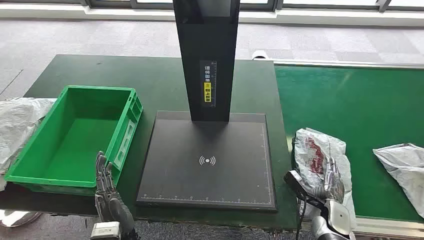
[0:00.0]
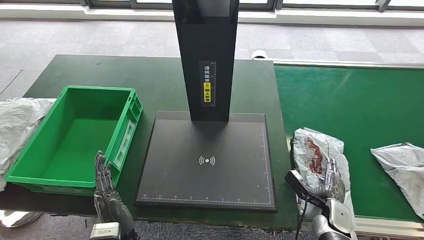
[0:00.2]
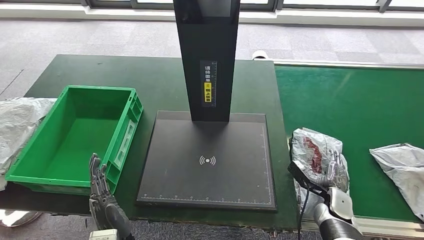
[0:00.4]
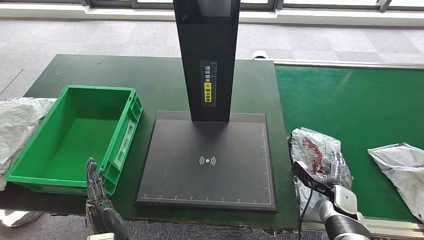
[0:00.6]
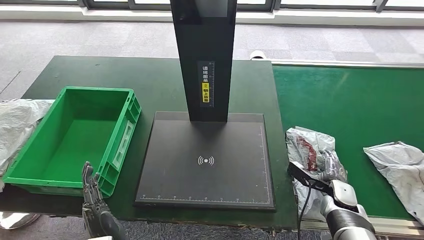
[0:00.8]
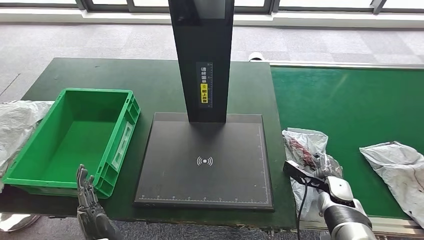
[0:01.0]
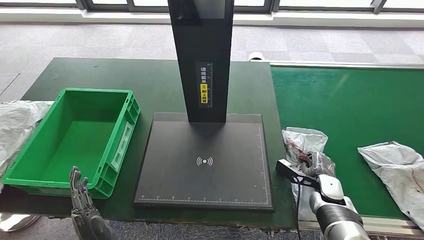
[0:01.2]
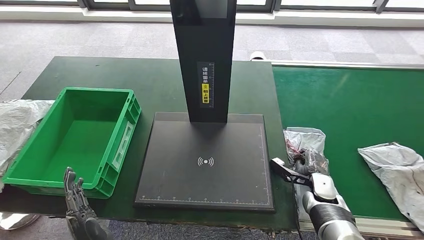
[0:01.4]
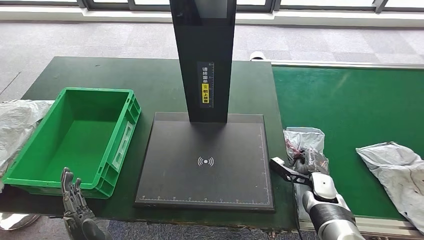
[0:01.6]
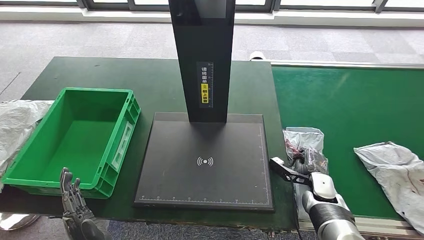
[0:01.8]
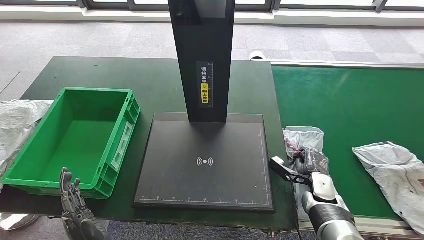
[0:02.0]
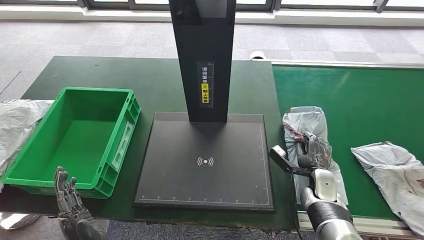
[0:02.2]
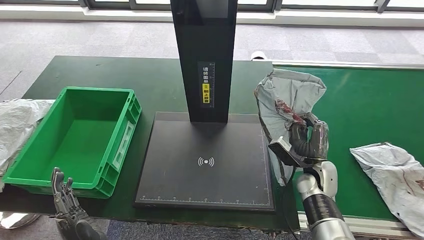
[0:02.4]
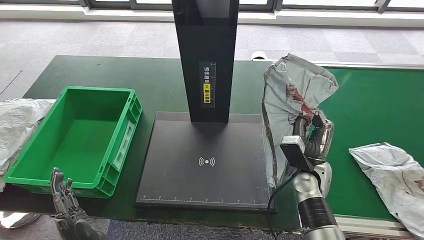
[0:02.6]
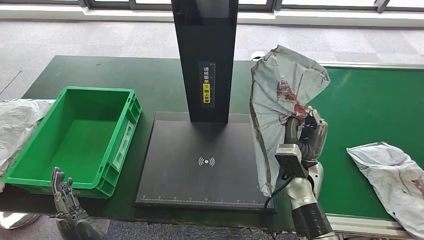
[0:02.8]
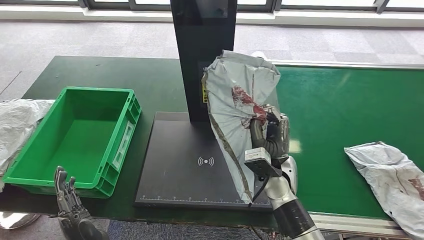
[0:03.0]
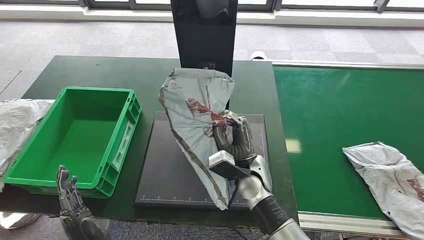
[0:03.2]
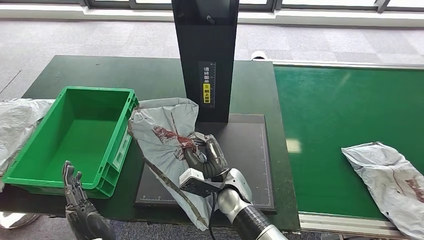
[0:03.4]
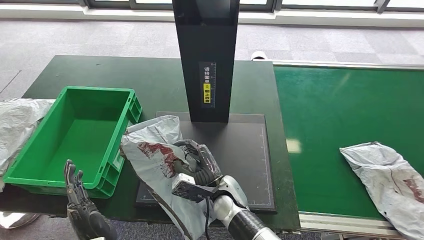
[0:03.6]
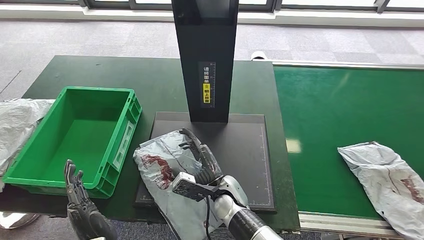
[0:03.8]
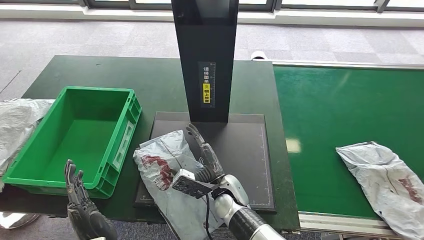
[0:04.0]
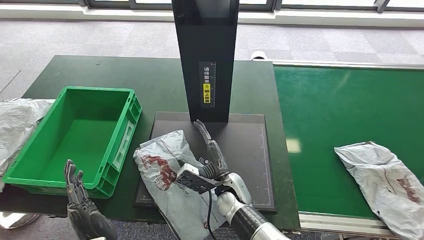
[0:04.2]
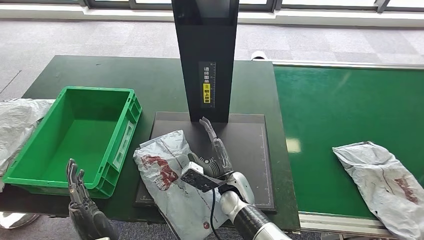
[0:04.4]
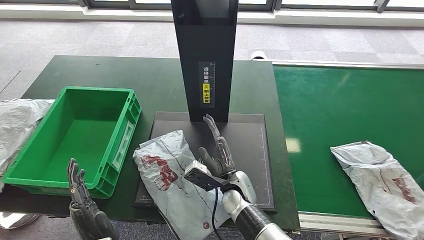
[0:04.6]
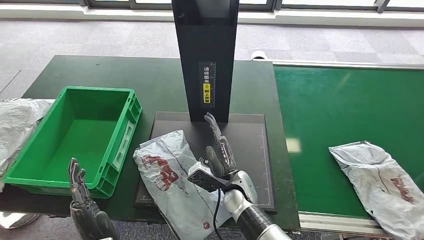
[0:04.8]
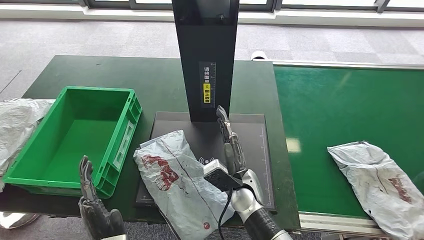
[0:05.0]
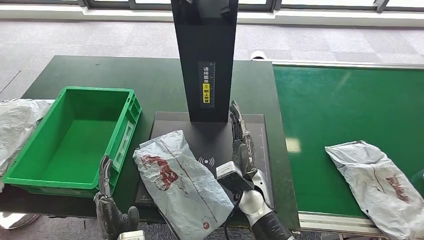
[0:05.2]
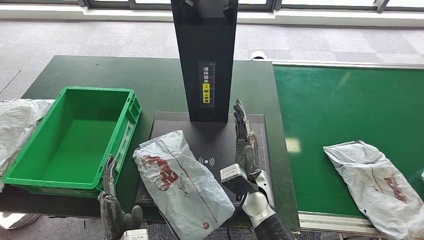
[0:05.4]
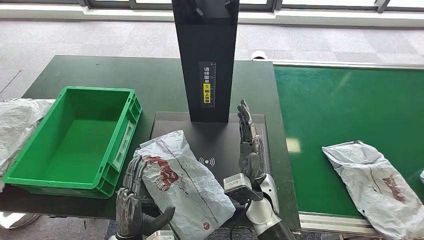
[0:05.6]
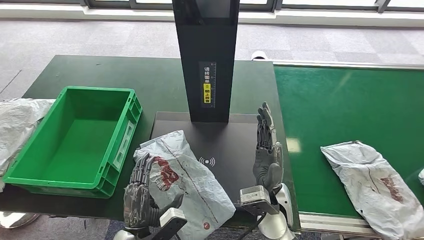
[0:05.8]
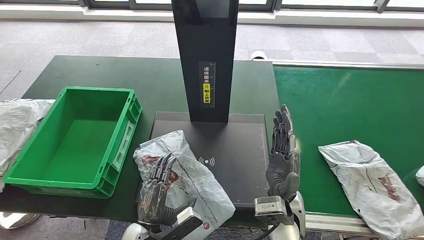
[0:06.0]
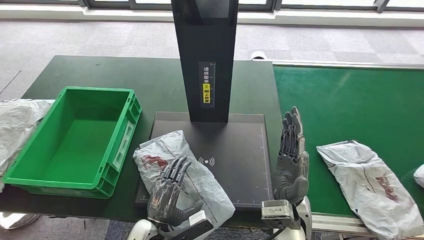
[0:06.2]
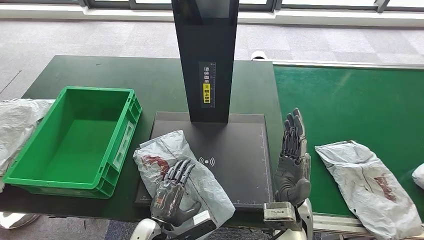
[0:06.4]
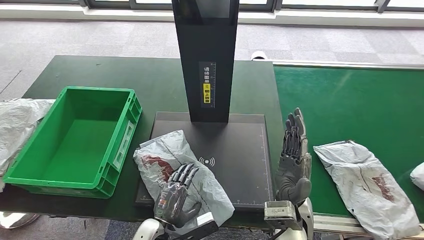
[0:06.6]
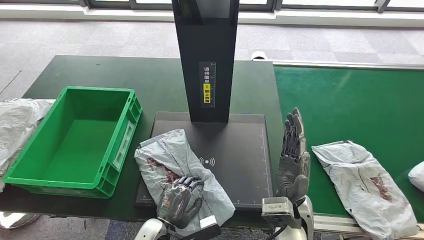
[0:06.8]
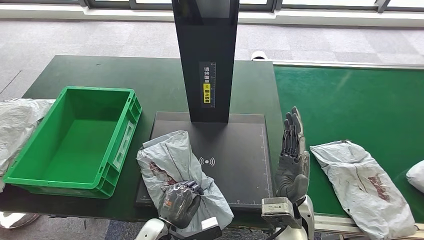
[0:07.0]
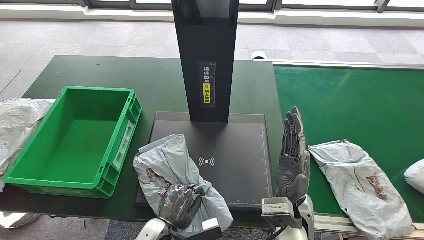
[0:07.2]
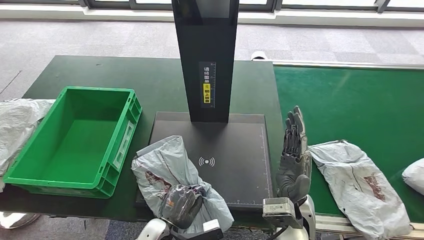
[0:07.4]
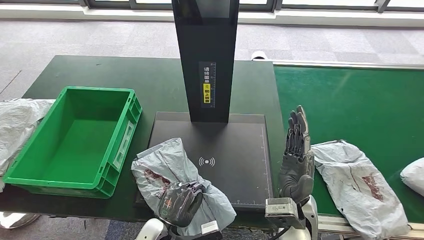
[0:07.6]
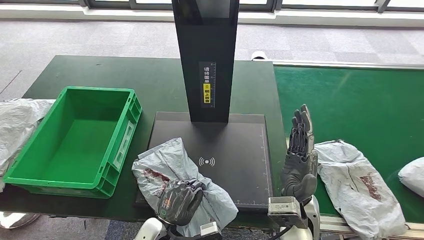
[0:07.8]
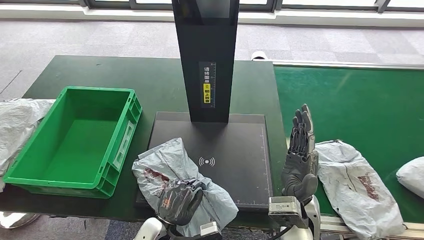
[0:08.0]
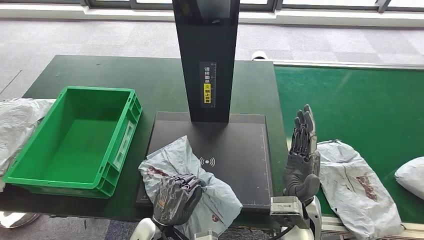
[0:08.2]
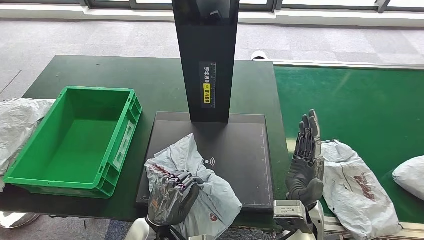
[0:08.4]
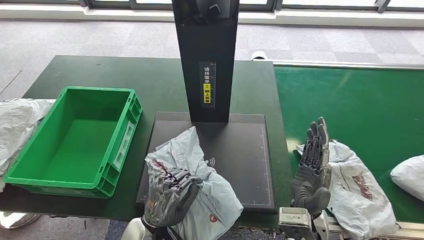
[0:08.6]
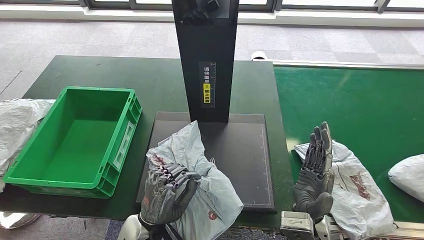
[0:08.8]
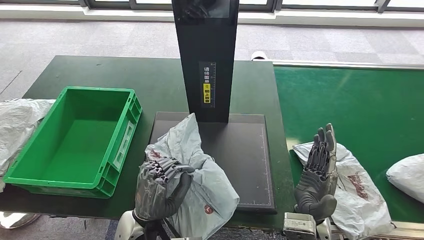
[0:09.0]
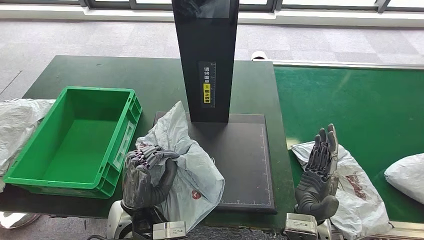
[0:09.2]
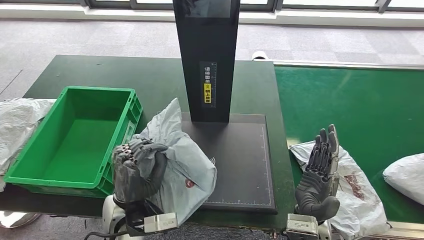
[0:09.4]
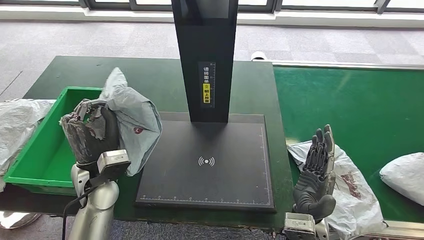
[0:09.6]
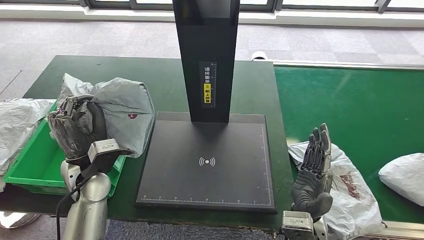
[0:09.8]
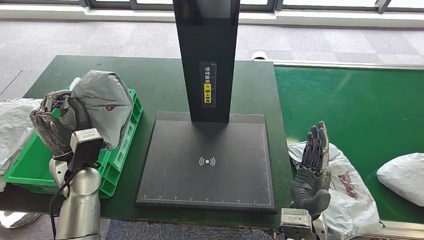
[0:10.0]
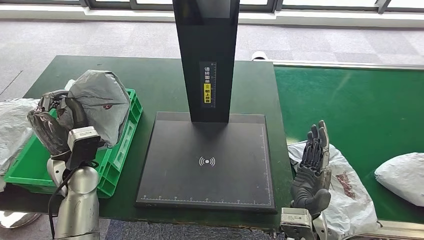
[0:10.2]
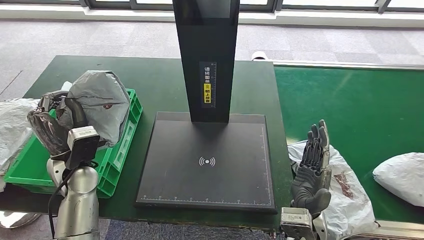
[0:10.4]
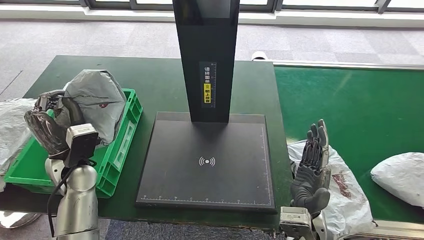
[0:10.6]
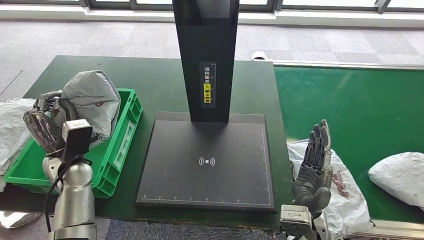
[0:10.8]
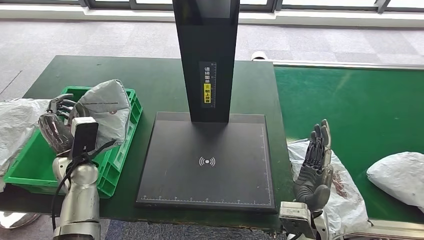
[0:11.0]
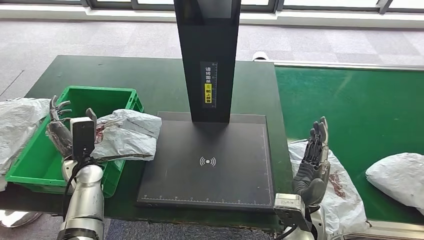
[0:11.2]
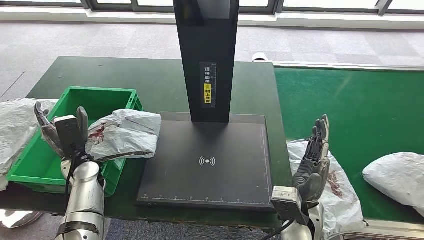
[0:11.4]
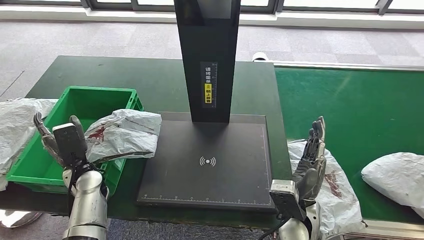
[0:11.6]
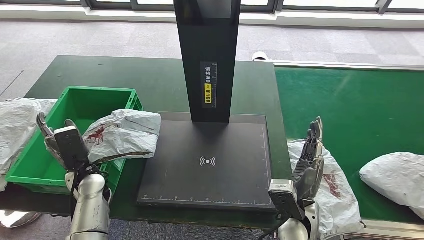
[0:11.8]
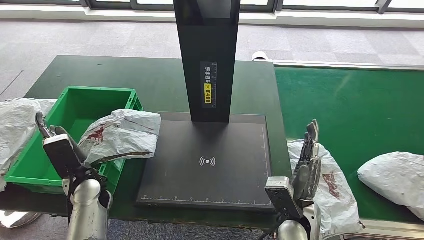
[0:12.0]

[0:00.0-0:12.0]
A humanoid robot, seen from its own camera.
Step, 0:00.0 to 0:03.0: Take the parcel off the conveyor belt.
Step, 0:03.2 to 0:05.2: Place the parcel onto the inbound machine.
Step, 0:05.4 to 0:09.8: Pick up the parcel from the inbound machine.
0:01.6 to 0:03.0: The right hand goes about 20 cm to the left and upward.
0:04.4 to 0:06.0: The left hand moves roughly 5 cm, while the right hand travels to the right and upward by about 10 cm.
0:07.6 to 0:09.0: The left hand shifts some 10 cm upward.

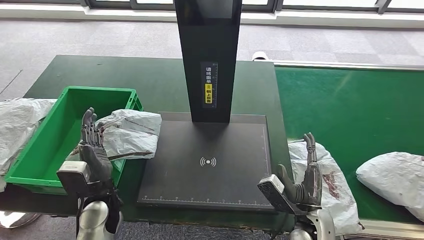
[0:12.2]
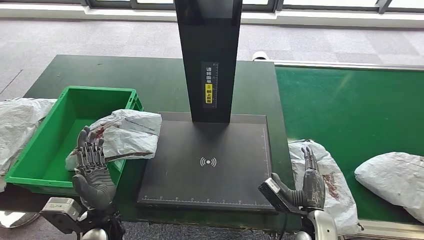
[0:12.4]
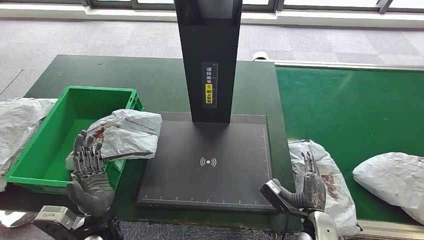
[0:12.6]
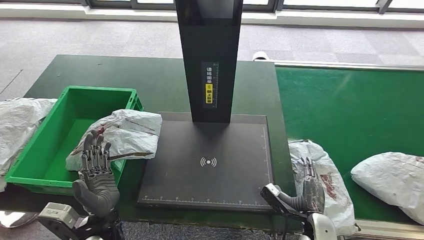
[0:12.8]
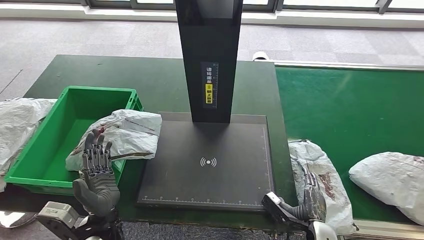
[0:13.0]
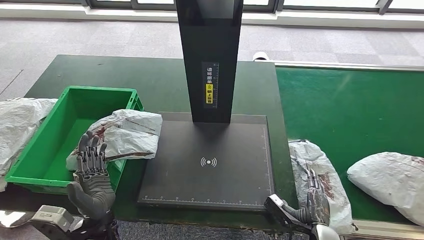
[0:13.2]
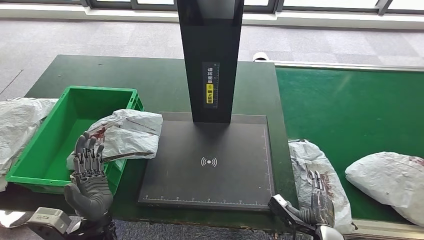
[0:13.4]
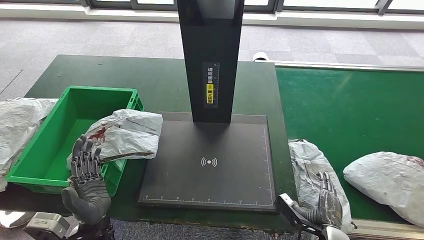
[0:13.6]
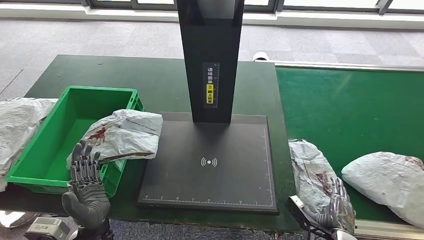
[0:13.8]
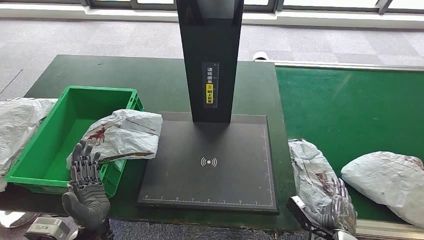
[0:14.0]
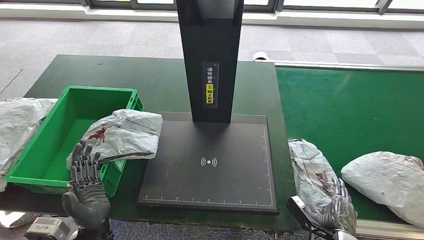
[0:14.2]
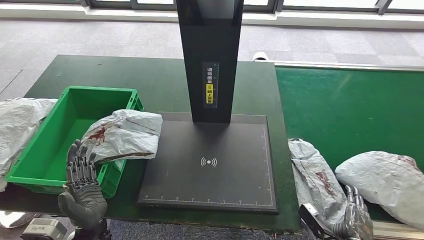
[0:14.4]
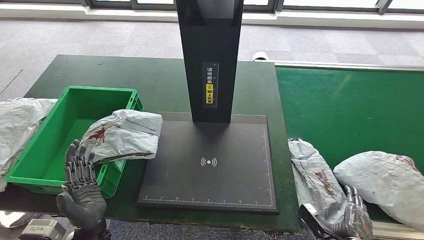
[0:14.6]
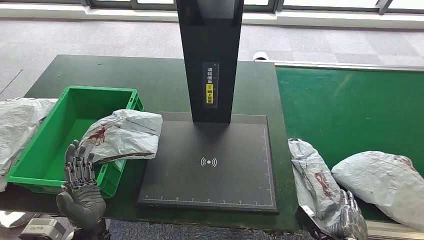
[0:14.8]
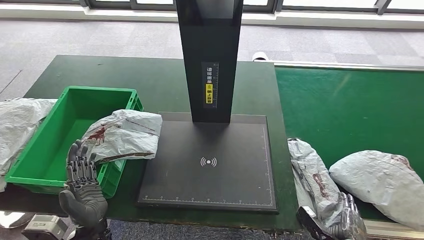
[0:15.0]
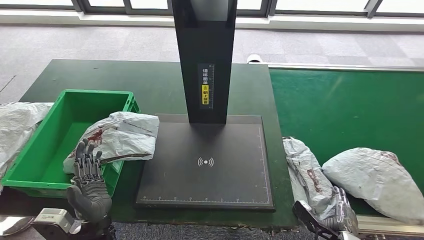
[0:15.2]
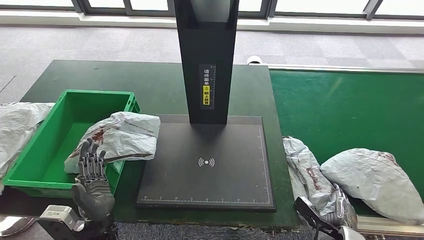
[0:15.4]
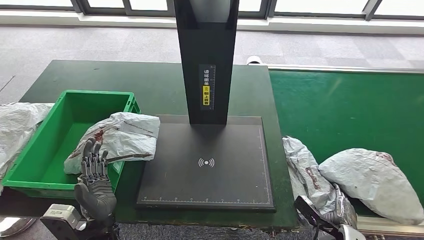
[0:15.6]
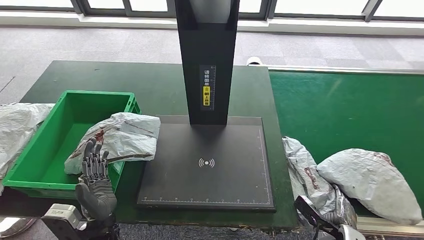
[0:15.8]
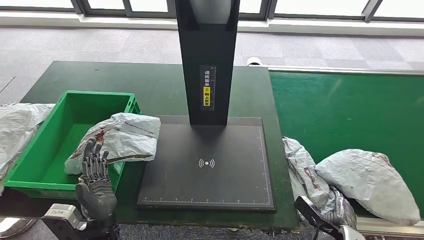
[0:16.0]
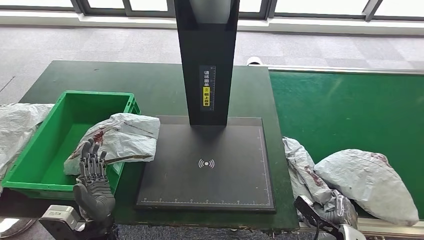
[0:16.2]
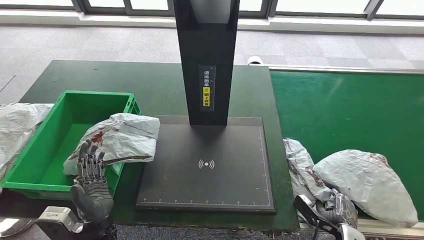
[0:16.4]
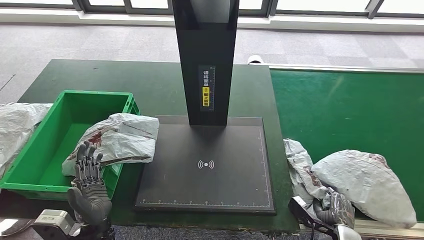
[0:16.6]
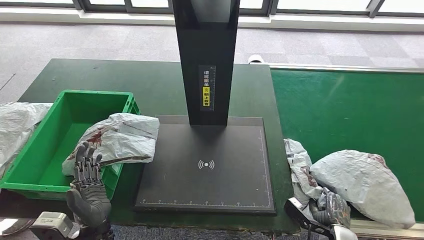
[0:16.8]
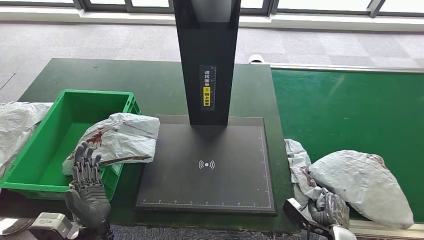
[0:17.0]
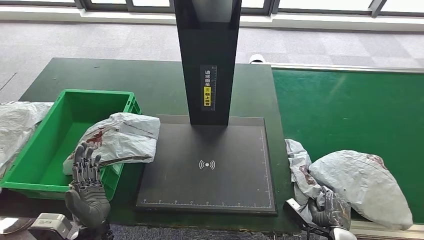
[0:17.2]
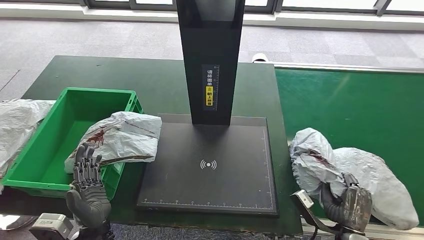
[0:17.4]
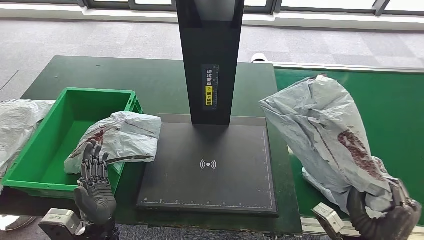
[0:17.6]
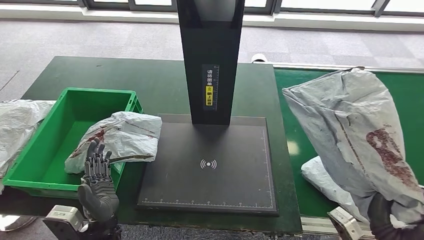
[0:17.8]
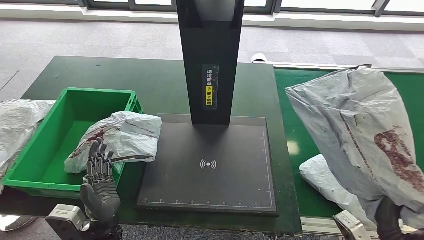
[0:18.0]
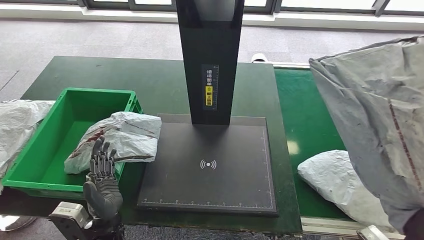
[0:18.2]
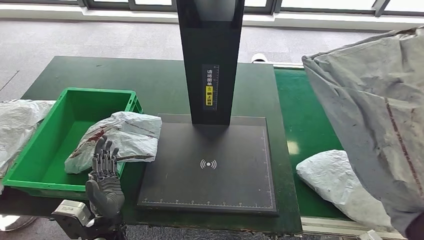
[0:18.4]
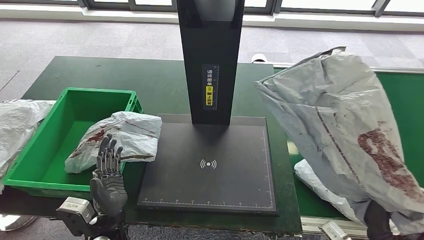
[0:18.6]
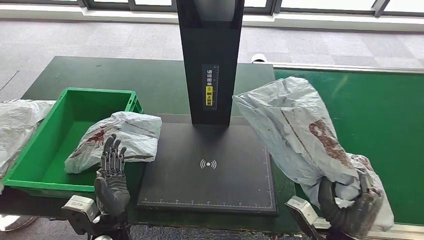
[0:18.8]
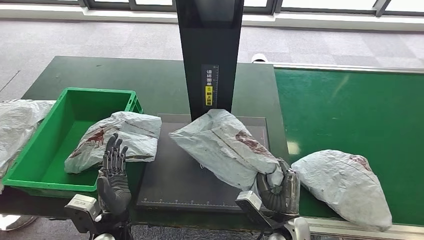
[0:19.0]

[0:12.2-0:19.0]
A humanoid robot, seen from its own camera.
Step, 0:16.0 to 0:18.6: Pick up the parcel from the conveyor belt.
0:12.2 to 0:13.6: The right hand shifts some 10 cm to the right and downward. Meanwhile the left hand goes some 10 cm backward.
0:13.6 to 0:15.0: The right hand shifts by some 5 cm.
